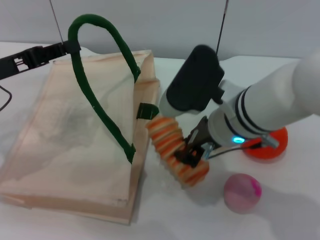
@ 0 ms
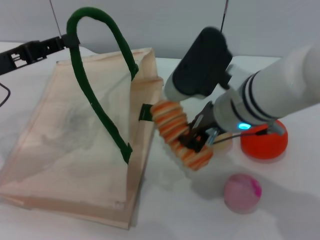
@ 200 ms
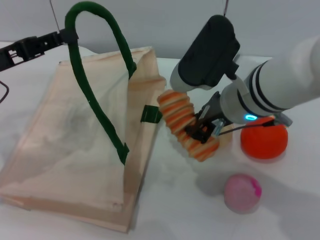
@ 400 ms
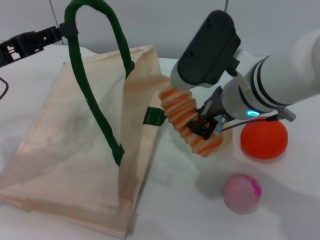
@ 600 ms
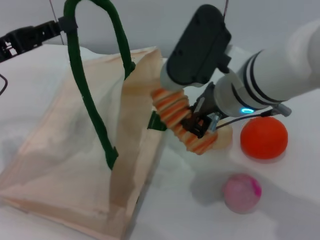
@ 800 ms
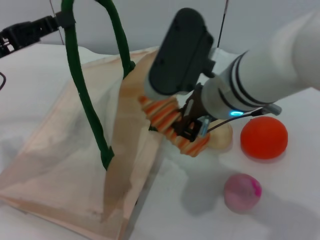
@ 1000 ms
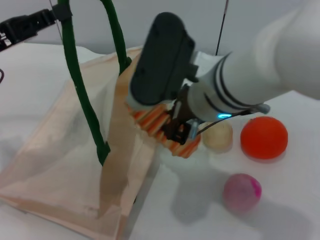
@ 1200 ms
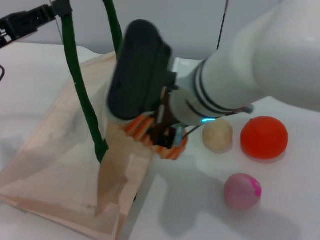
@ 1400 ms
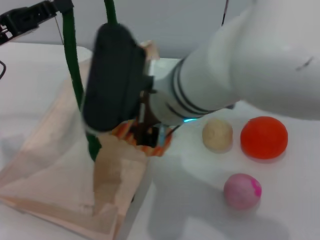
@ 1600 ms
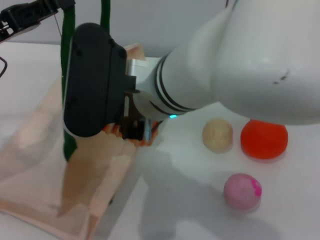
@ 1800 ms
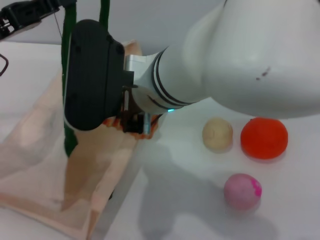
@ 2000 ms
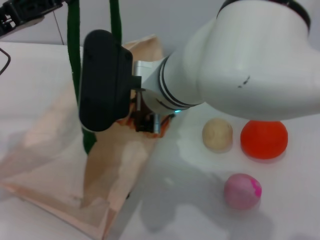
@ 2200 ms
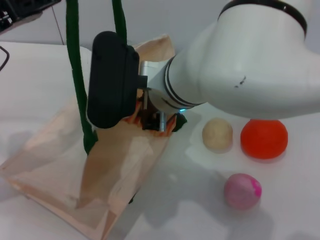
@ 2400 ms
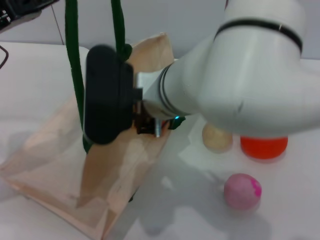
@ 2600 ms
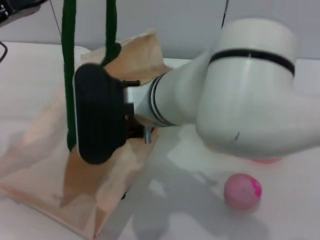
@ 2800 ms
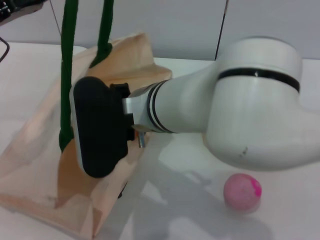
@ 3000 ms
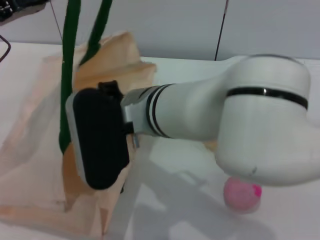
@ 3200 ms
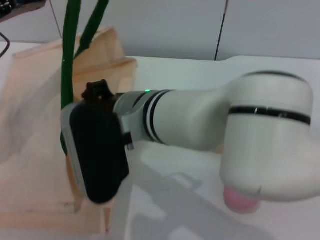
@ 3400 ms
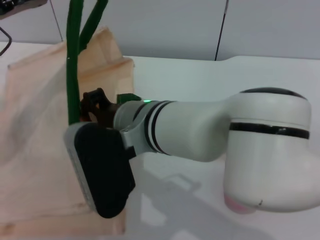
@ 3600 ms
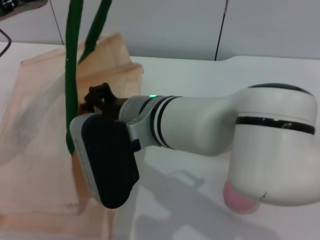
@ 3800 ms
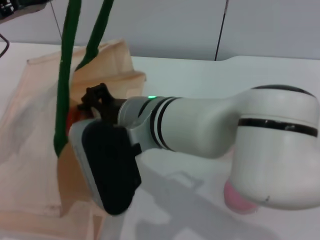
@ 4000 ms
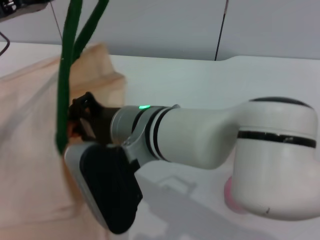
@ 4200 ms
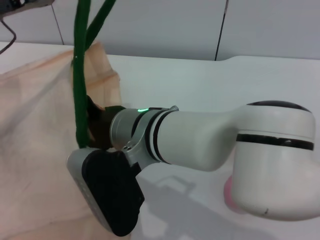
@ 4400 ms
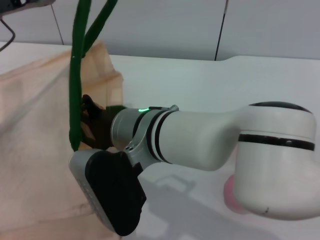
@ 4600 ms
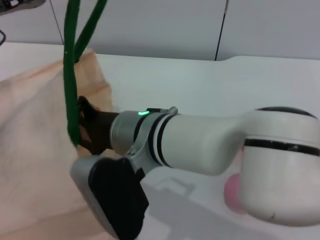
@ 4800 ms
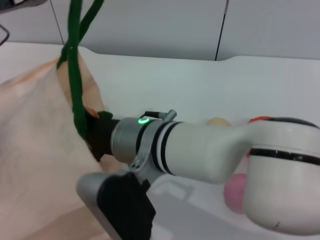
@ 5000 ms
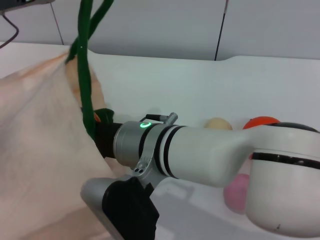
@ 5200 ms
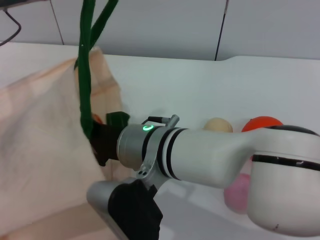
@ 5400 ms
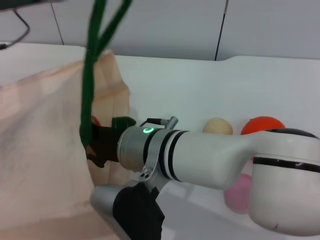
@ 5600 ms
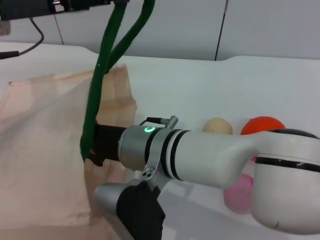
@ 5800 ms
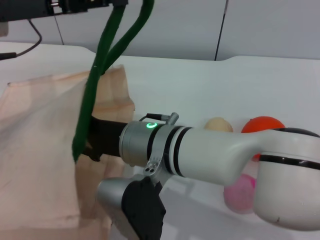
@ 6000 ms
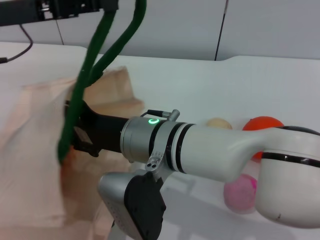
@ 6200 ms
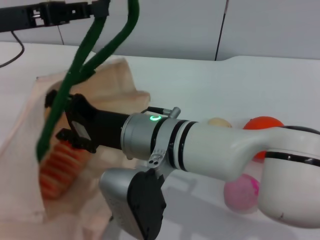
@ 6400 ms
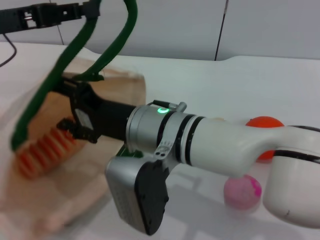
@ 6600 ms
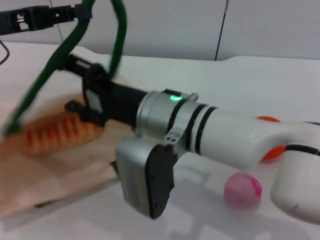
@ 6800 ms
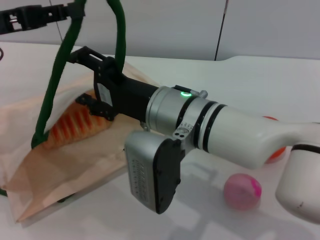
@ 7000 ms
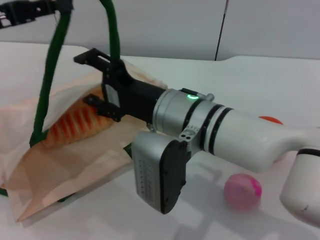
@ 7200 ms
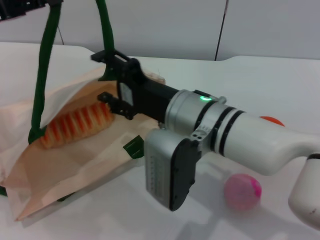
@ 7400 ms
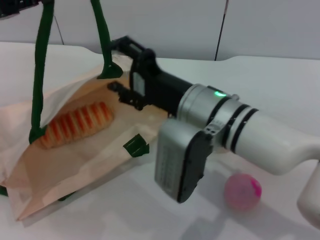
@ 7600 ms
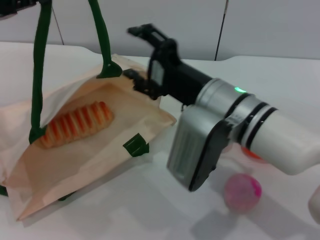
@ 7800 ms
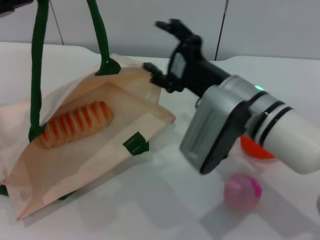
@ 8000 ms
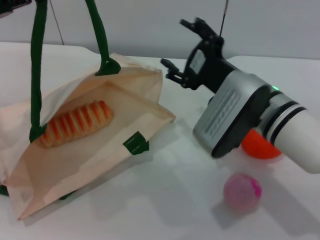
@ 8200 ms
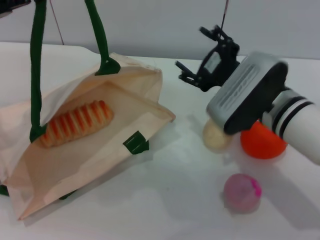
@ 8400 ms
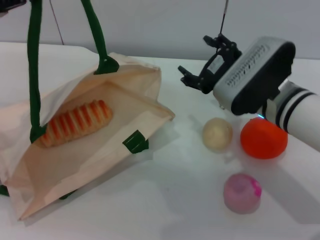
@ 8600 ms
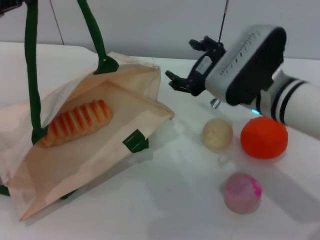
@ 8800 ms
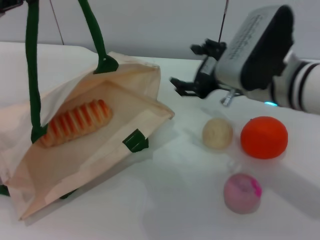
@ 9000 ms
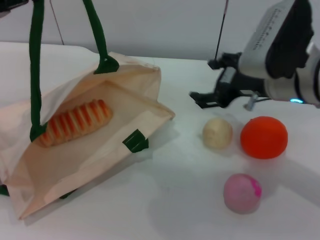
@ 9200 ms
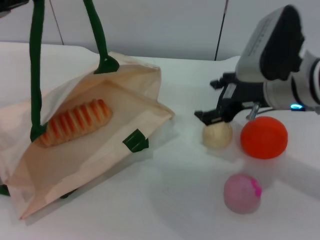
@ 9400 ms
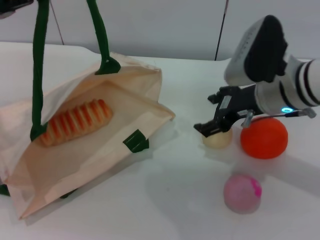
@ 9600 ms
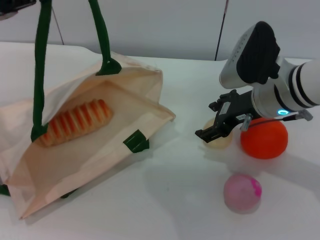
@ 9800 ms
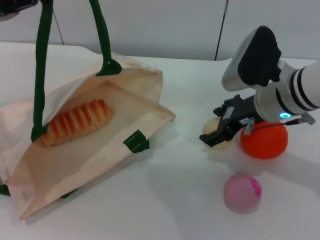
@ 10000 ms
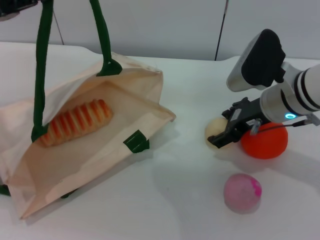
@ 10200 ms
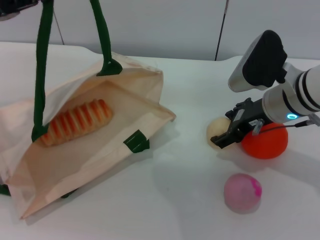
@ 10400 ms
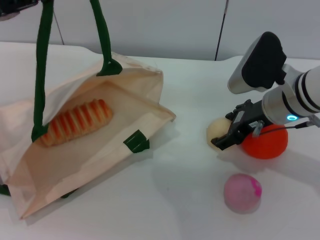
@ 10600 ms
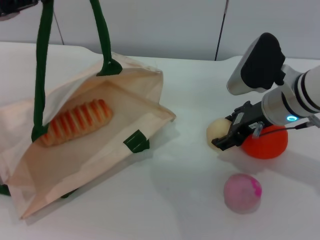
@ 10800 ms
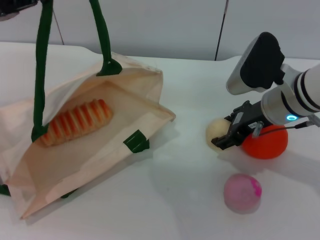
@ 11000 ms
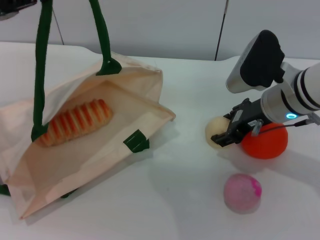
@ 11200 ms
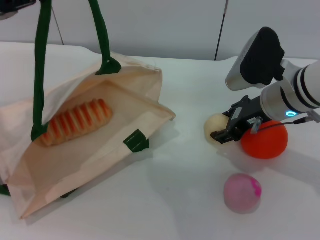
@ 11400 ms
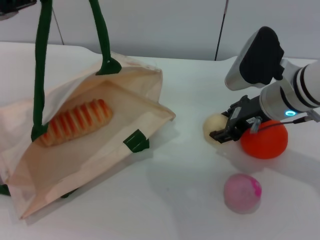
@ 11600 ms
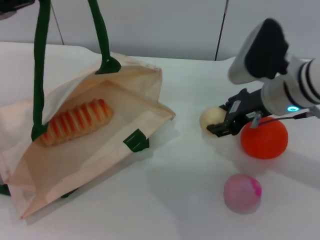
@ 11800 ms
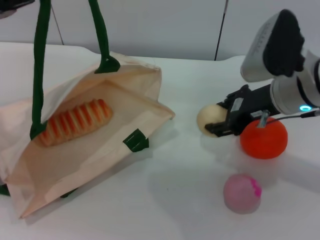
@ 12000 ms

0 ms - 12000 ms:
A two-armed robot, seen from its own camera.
Task of the whole recording: pick up the bread and egg yolk pastry from the table and place it in the white handbag.
Step, 600 ms - 8400 ms: Place the bread into the woven bag with the right gripper.
0 ms - 1600 ms: The right gripper moves to the left and upward, roughly 10 cm.
1600 ms - 3000 ms: The right gripper changes place by approximately 5 cm.
6000 ms - 7600 ms: The right gripper moves to the right, roughly 5 cm, and opens; the left gripper goes approximately 5 cm to the left.
7600 ms - 9000 ms: The right gripper heads to the right, covering about 10 cm.
9000 ms - 10400 ms: The right gripper shifts by approximately 5 cm.
10400 ms - 12000 ms: The right gripper closes up.

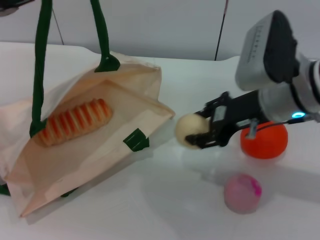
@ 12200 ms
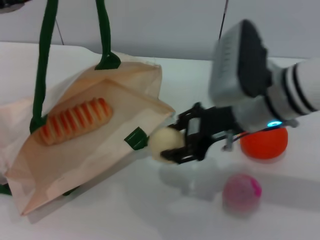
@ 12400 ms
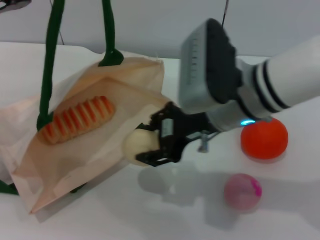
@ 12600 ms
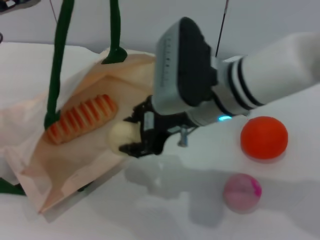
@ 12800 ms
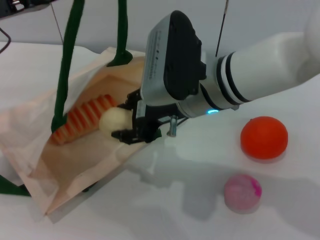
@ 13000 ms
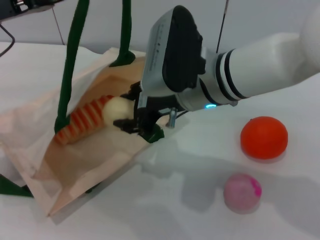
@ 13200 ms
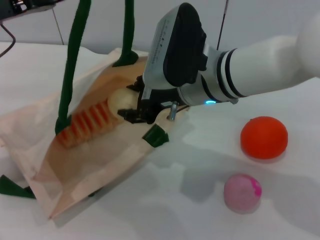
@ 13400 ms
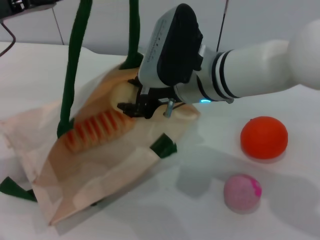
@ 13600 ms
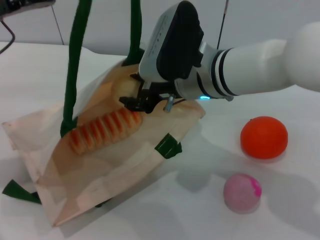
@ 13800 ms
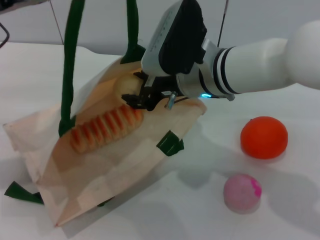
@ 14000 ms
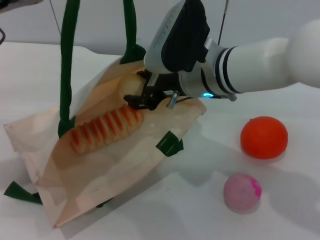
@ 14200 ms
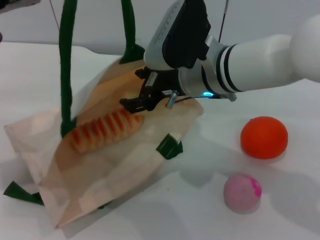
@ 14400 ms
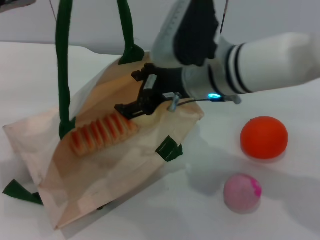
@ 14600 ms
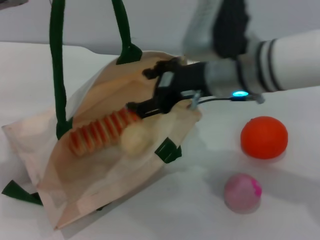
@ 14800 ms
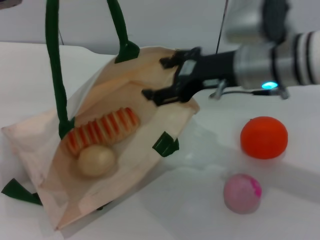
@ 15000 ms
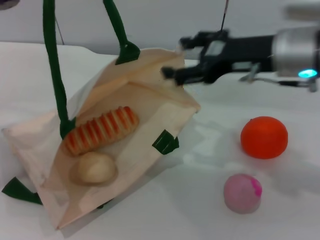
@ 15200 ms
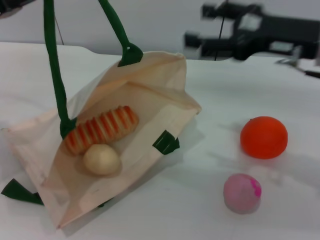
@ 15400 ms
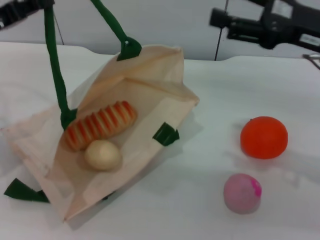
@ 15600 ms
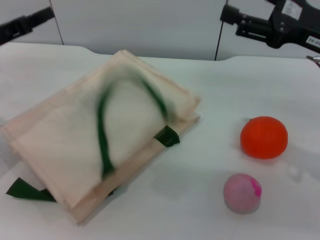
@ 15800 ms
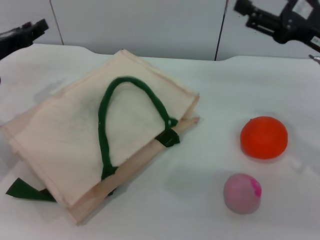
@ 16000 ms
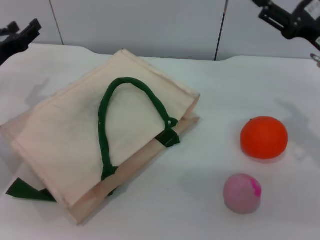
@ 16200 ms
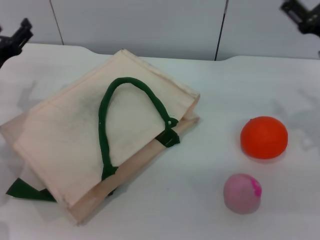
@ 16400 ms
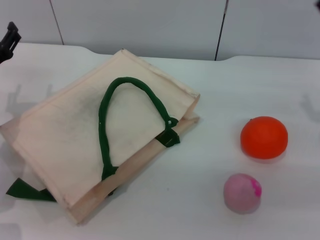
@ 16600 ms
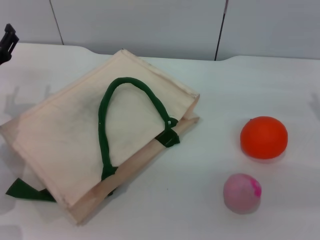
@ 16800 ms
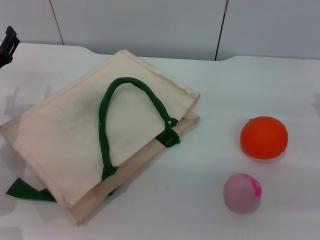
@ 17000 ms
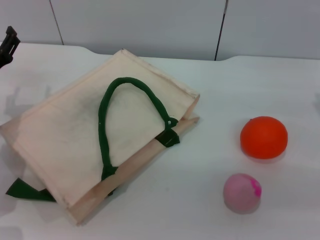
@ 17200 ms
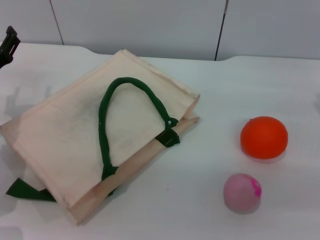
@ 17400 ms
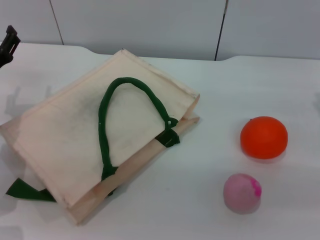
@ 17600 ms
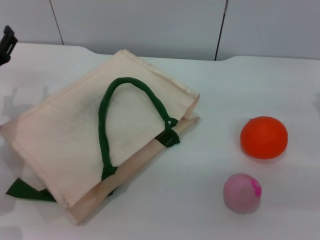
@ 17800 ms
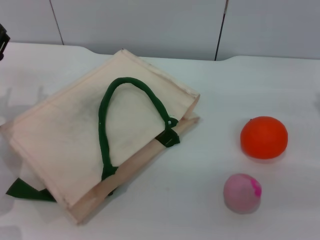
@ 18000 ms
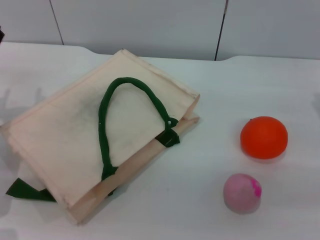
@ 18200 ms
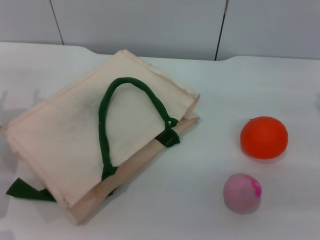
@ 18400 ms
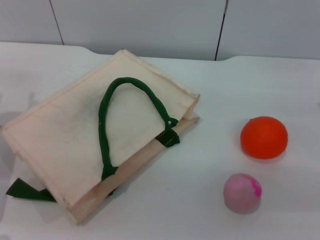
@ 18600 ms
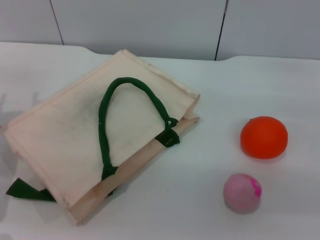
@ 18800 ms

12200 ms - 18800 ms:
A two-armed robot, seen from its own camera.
Task of the whole recording: pick up the bread and egg yolk pastry from the table and place it in the white handbag.
Step, 12400 ms - 15400 ms: Place the egg yolk pastry into the woven bag with the right gripper.
Step, 15600 ms - 16600 ms: Lower the woven bag with the left gripper to close it.
12200 ms - 13800 ms: The right gripper moves to the left, about 10 cm, while the left gripper shifts by about 5 cm.
13800 ms - 15400 ms: The left gripper changes place by some 5 cm. Meanwhile the right gripper moves to the right, approximately 15 cm, and opens its fingers.
15400 ms - 17200 ms: The right gripper goes roughly 15 cm downward and to the right. The left gripper shifts approximately 15 cm downward, and opens.
17200 ms - 18800 ms: The grippers make only small movements.
